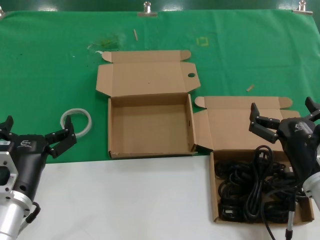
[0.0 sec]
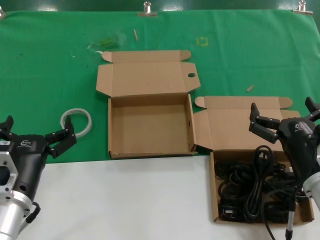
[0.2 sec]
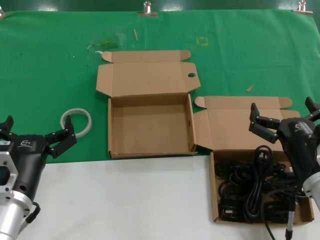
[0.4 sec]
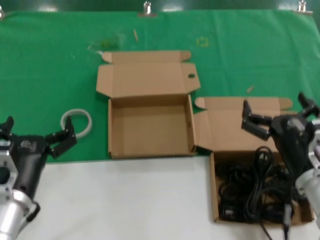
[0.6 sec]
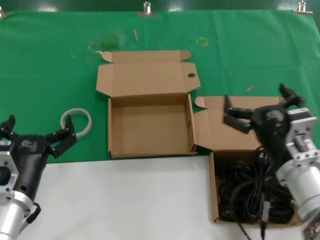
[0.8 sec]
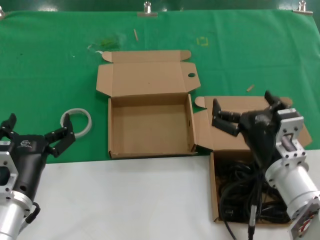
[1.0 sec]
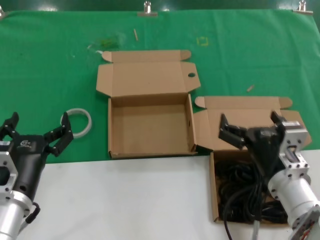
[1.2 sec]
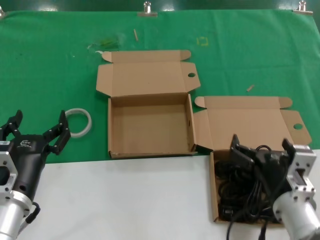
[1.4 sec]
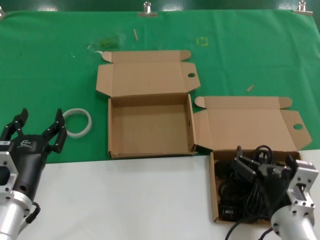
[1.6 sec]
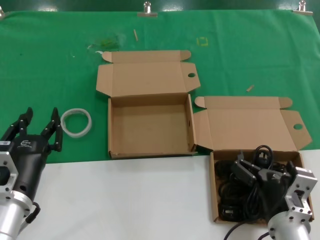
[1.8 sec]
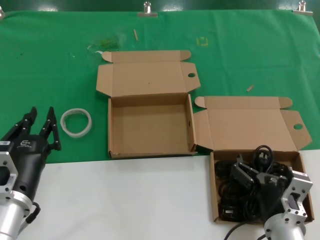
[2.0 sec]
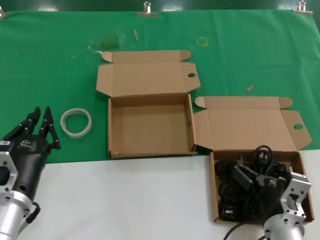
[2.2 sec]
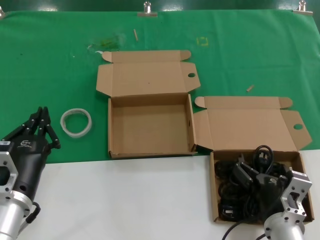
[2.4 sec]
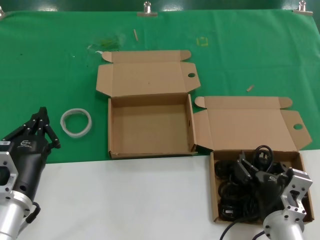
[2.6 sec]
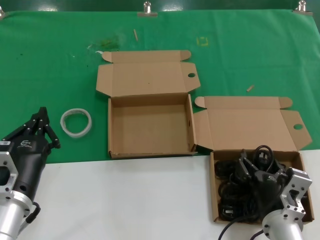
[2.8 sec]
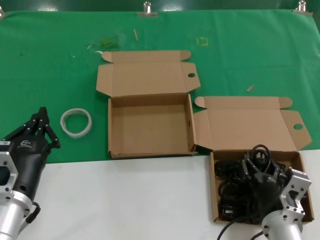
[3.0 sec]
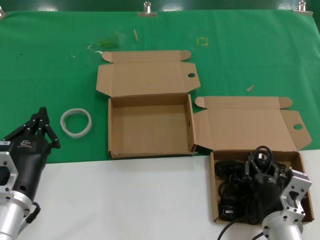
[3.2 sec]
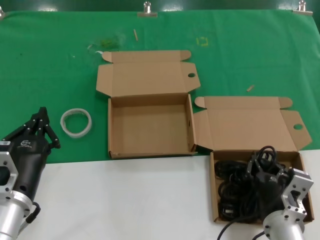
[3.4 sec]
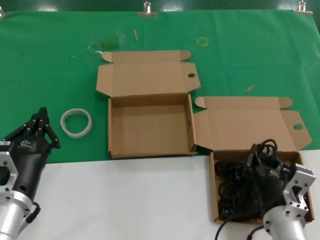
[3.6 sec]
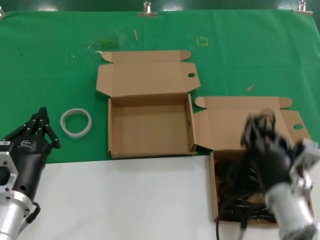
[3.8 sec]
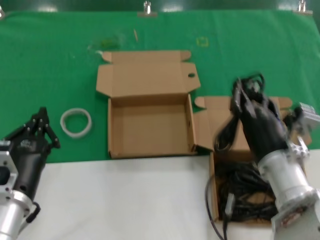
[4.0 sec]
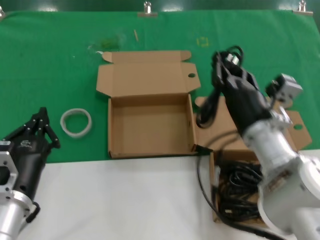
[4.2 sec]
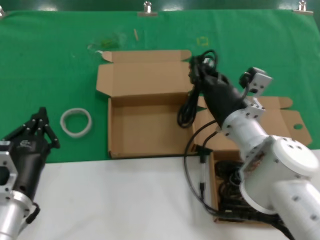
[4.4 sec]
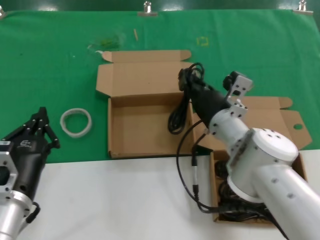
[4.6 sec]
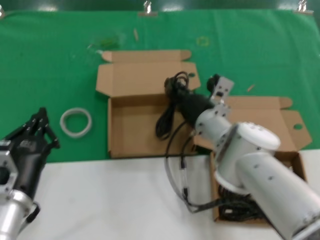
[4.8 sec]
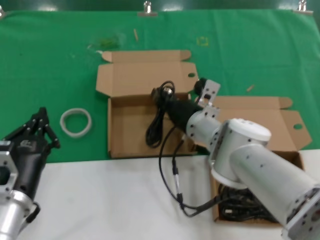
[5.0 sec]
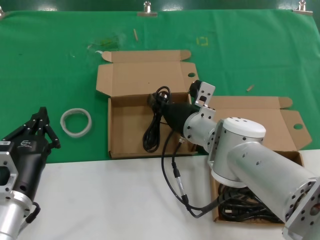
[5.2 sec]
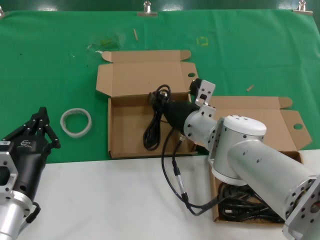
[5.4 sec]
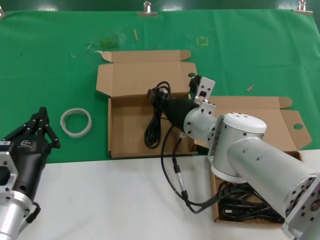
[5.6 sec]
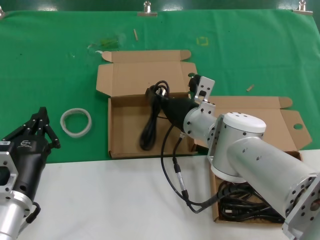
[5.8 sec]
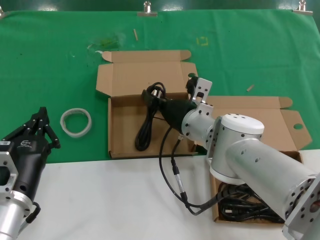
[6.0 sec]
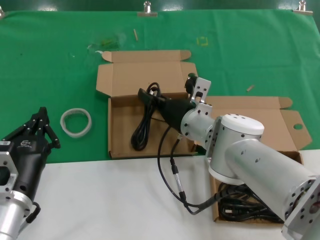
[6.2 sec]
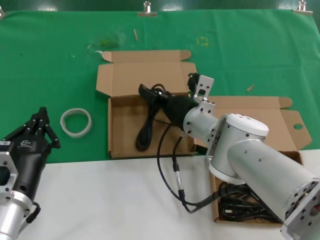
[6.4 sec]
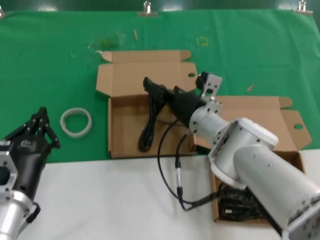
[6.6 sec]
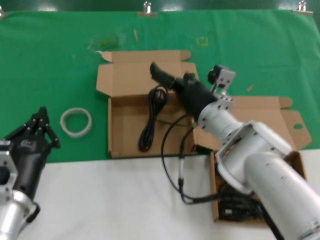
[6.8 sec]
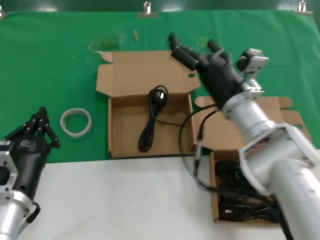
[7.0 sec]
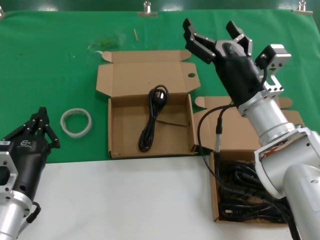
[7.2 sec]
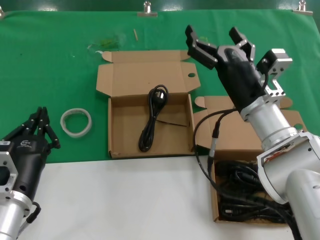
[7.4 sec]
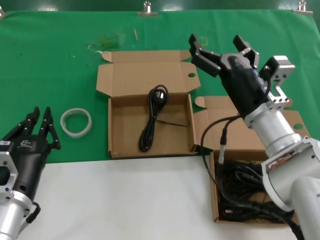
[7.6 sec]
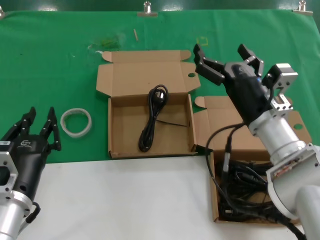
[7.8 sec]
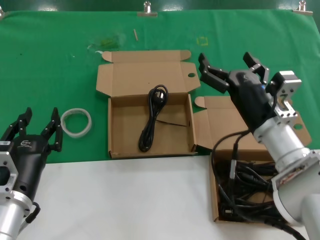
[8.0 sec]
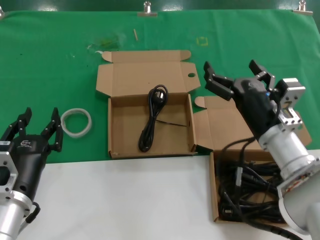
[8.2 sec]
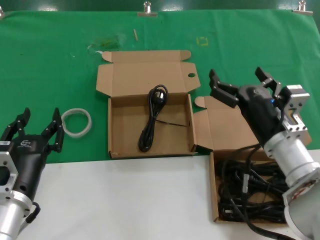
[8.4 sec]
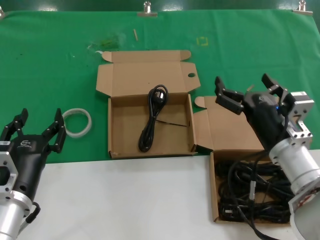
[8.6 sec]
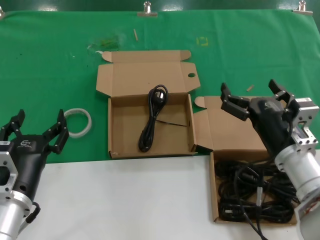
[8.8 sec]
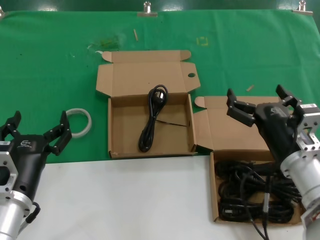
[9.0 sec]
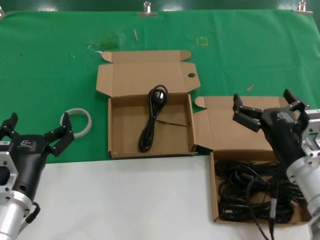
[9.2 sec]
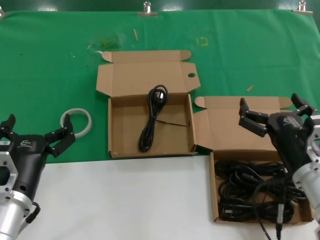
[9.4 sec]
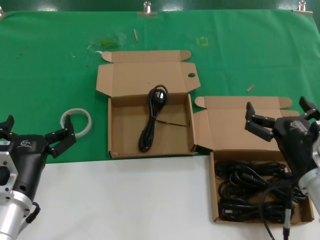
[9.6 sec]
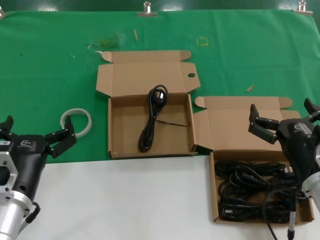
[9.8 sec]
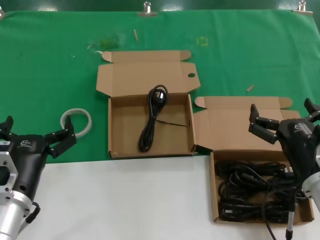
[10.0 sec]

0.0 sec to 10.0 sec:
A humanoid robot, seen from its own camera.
Task of the whole recording: Pick up the power cord from the box containing it and place it in another box.
Step, 0.0 sec to 3.4 sec: Grasp the data cable.
Step, 3.6 sec to 6.6 sec: Place the data cable in the another box.
0.0 sec to 1.4 sec: The right hand goes about 5 cm to the left.
1.4 sec to 2.8 sec: The right hand is displaced downward by about 5 cm.
2.8 sec to 4.2 sec: The right hand goes roughly 15 cm upward and forward.
4.2 sec to 5.8 sec: The right hand is displaced forward and to the left by roughly 15 cm.
5.8 sec to 7.2 sec: The right hand goes approximately 10 cm to the right and backward.
7.2 sec to 8.6 sec: The right hand travels backward by roughly 5 cm.
8.6 sec to 10.0 sec: The right hand moves backward, approximately 5 cm.
